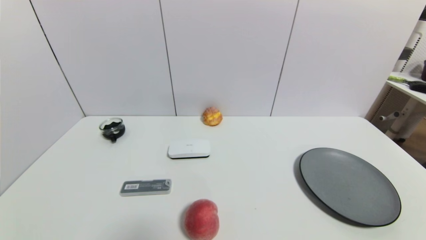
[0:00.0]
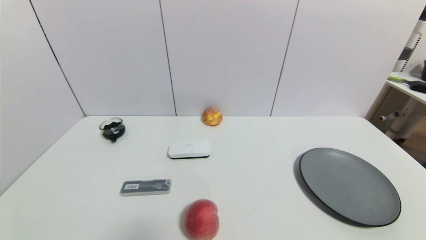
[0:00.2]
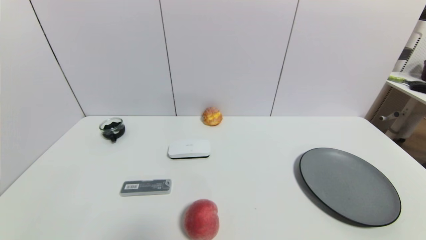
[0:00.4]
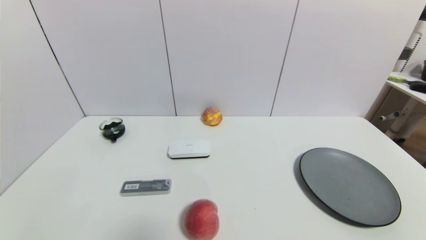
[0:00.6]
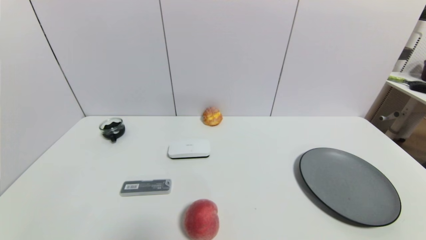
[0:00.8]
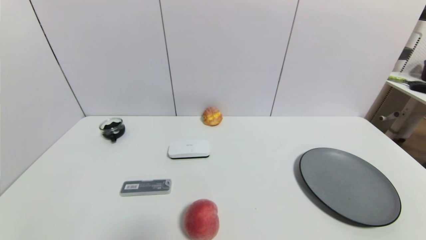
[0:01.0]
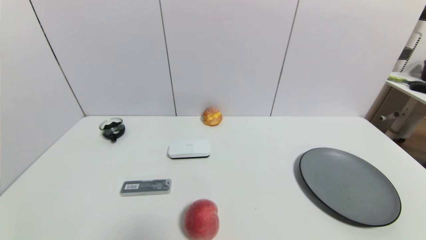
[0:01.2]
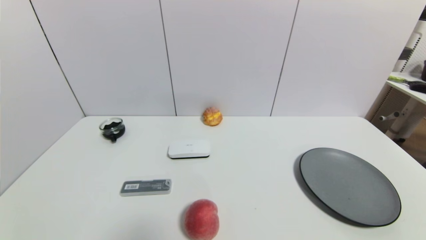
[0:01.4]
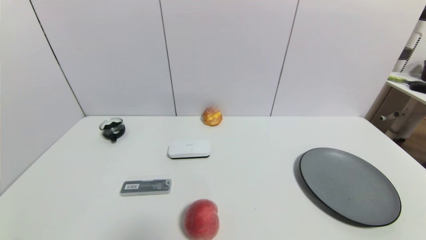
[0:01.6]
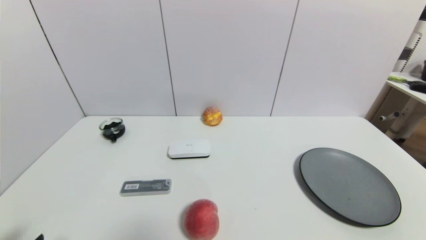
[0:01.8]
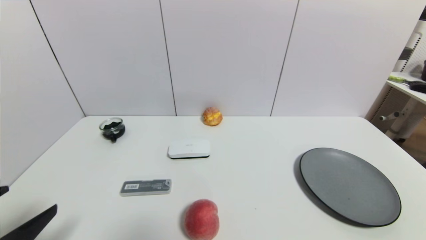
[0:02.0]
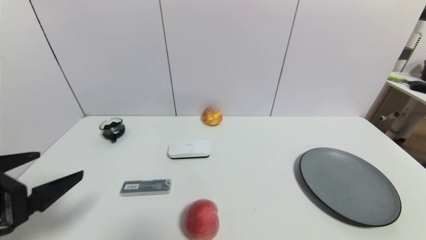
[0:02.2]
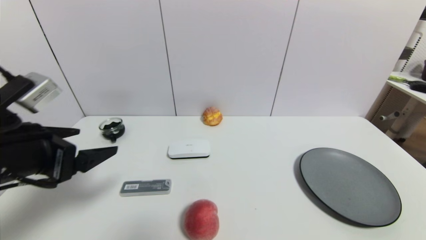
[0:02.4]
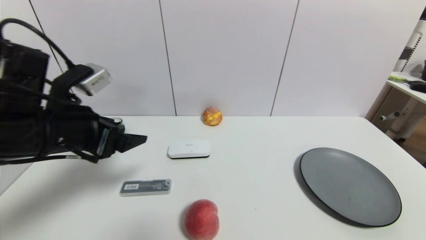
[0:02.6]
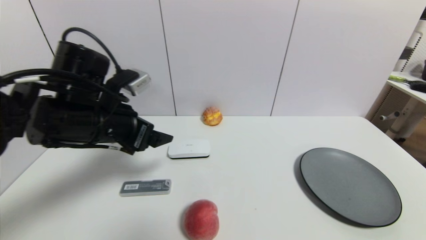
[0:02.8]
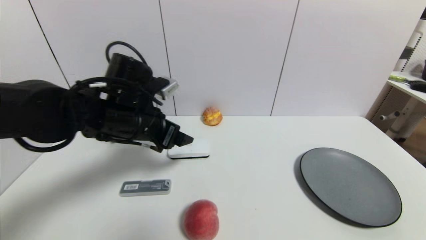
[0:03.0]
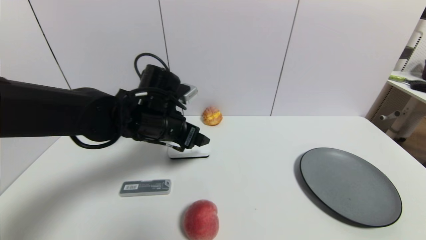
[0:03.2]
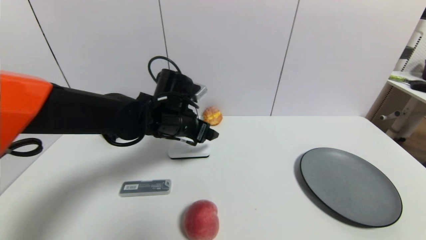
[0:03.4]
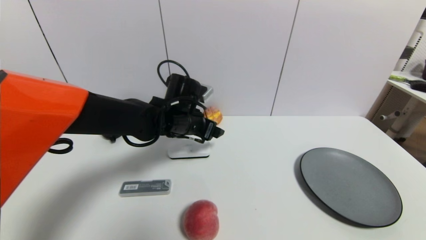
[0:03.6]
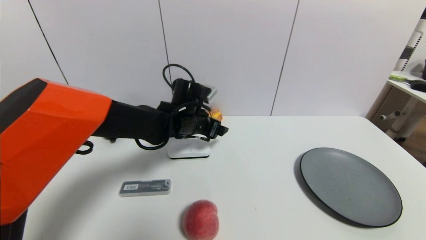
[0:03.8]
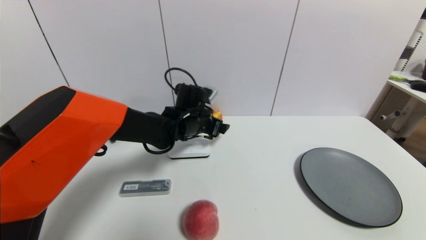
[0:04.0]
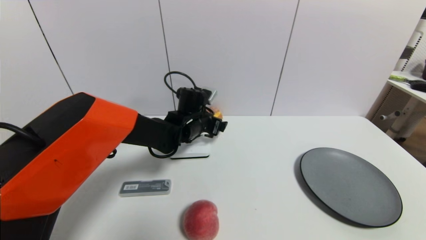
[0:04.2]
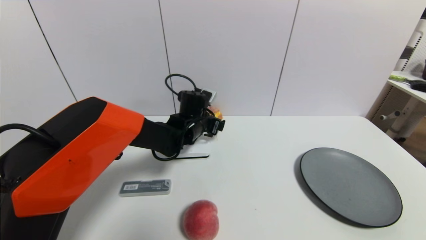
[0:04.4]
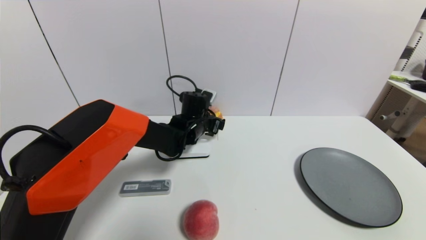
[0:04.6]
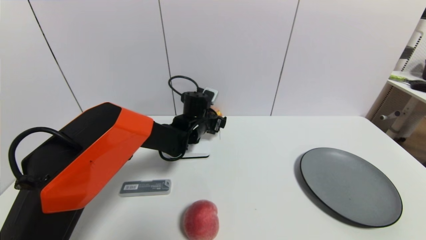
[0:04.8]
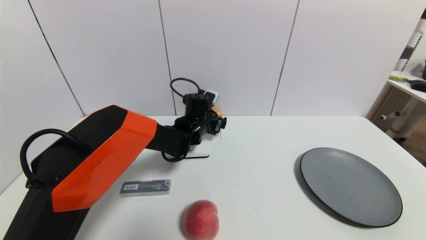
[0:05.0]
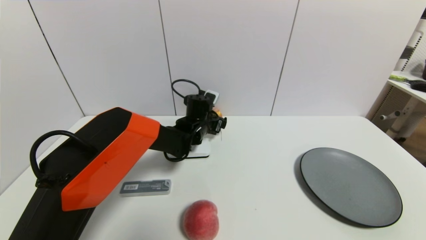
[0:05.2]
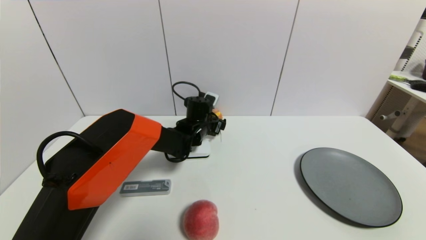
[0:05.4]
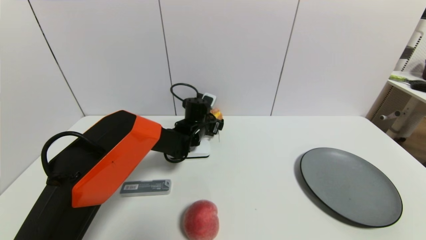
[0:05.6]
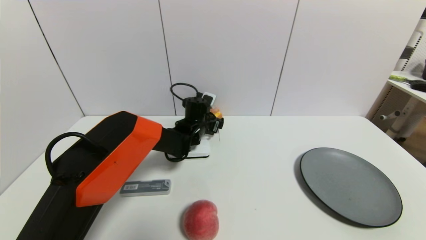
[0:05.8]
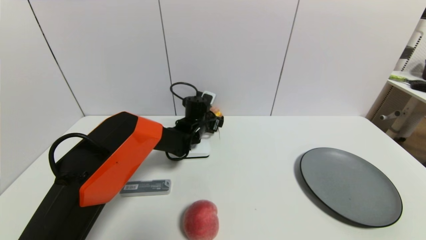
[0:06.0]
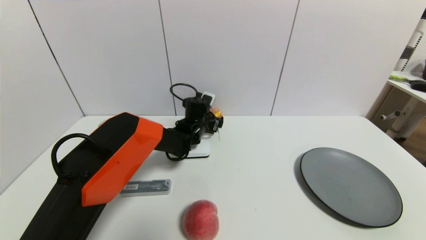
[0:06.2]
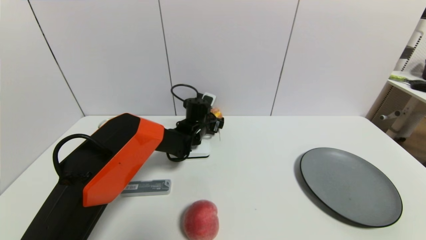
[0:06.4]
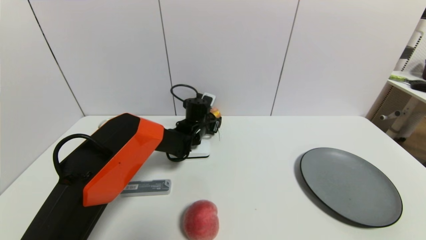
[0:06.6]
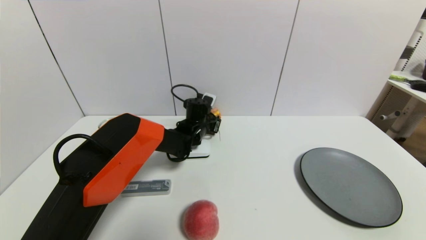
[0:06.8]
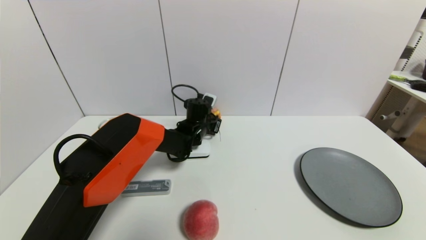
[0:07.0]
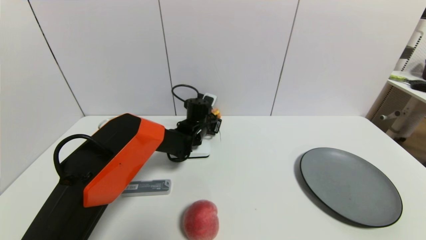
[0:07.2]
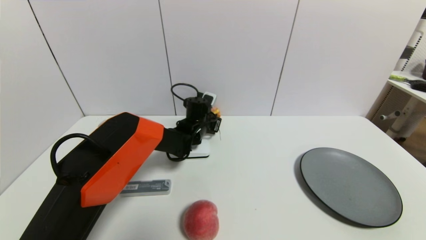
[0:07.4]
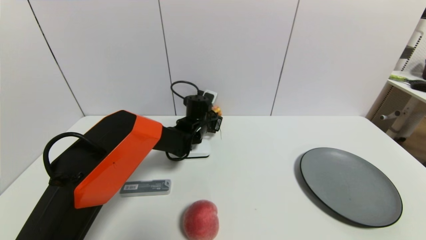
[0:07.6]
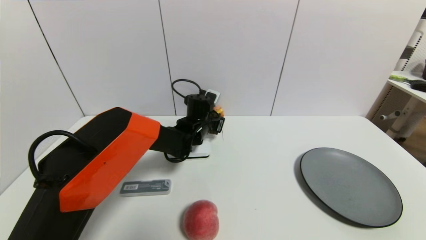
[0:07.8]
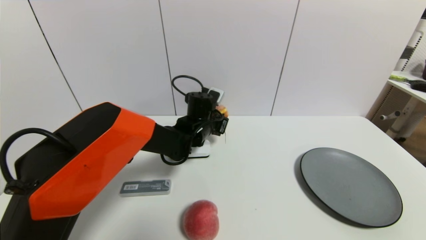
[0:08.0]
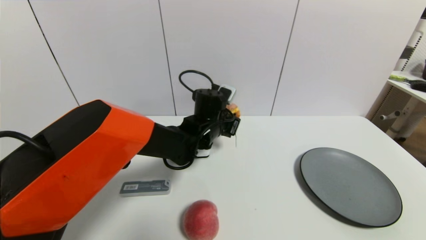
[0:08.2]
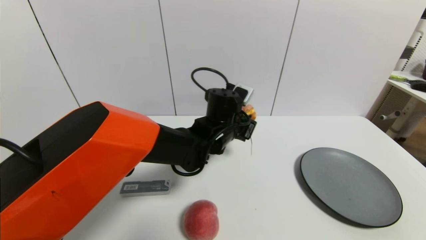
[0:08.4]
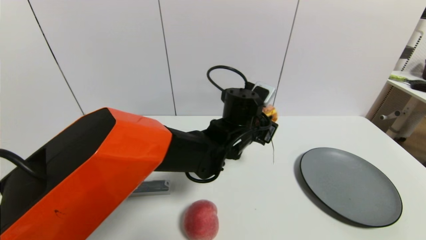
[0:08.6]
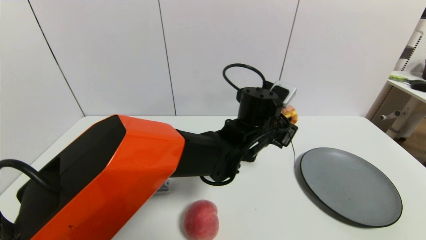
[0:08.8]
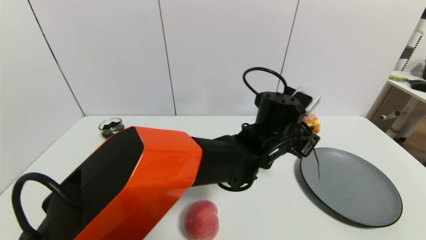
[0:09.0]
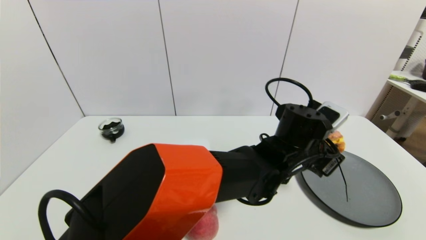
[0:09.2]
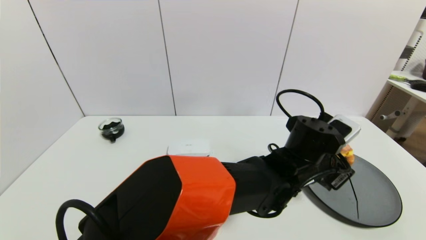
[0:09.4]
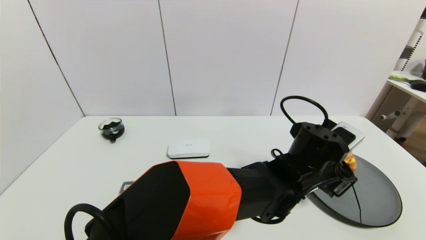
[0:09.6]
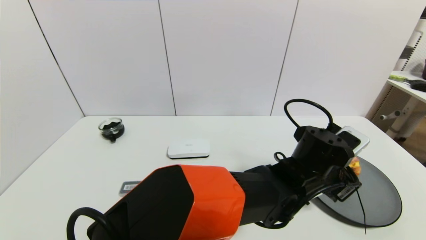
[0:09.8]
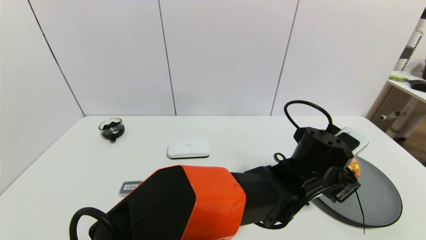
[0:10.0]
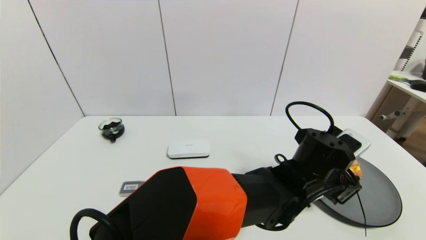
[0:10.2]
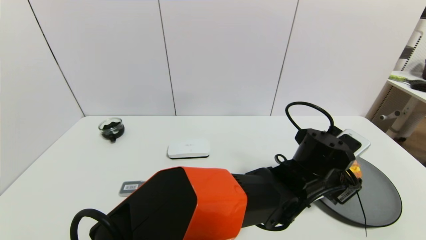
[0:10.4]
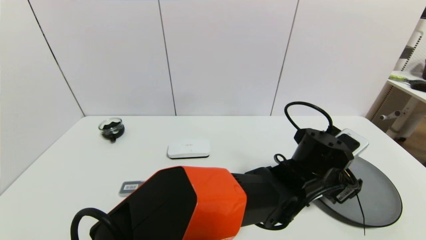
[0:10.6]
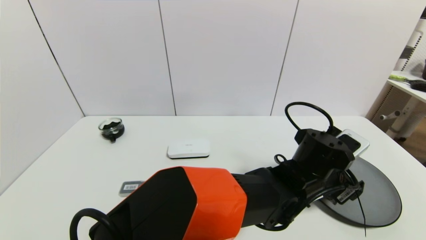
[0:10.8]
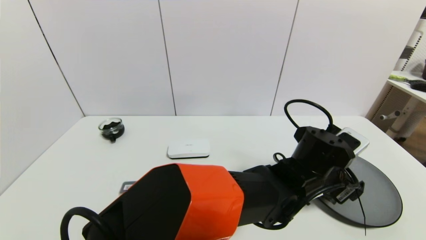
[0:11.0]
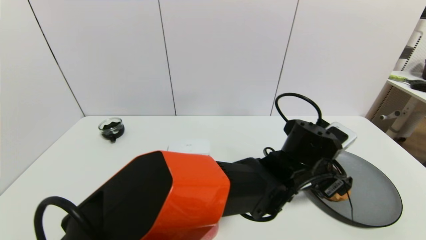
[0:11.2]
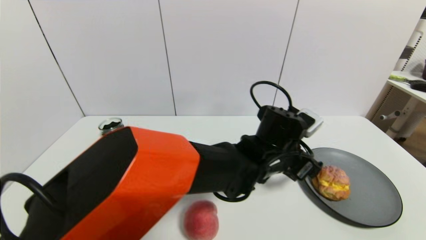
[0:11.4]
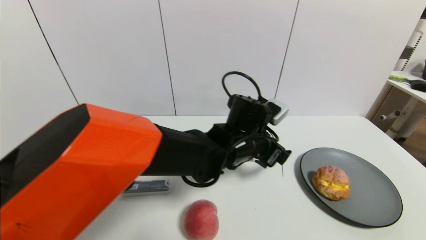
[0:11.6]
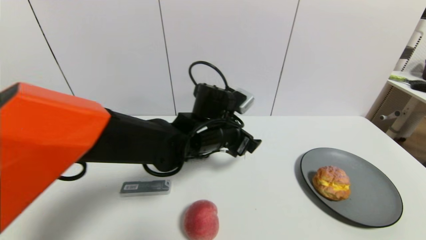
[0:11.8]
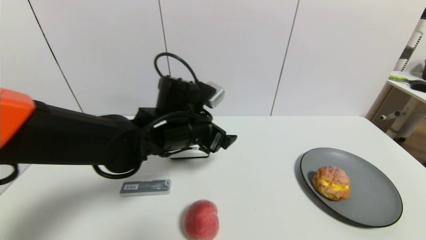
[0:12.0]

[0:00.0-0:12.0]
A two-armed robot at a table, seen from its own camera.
Task of the whole recording: use a gripper to pick the target object and place on the gray plate.
Step, 0:00.0 to 0:07.2: Grasp the round bread with the left gripper.
Step, 0:07.4 to 0:11.2: Place the round bread on the gray plate with the left gripper.
0:01.6 to 0:03.0: The left gripper moves forward, to the right and upward, approximately 35 cm.
0:03.0 to 0:04.4: The left gripper travels forward, downward and to the right by approximately 20 cm.
0:04.4 to 0:06.0: The left gripper shifts by roughly 5 cm.
0:06.0 to 0:07.6: The left gripper closes up.
0:07.6 to 0:09.0: The left gripper moves backward, to the right and upward, some 25 cm.
0:09.0 to 0:10.4: The left gripper travels to the right by roughly 5 cm, and opens.
0:10.4 to 0:12.0: The left gripper shifts approximately 25 cm to the left.

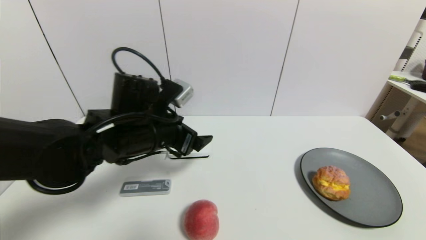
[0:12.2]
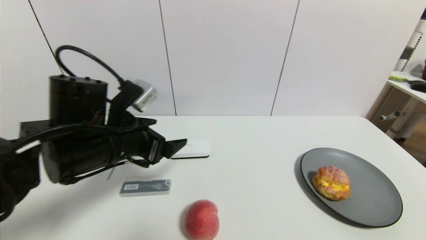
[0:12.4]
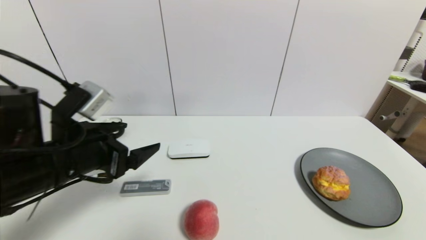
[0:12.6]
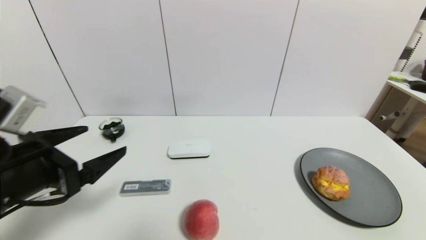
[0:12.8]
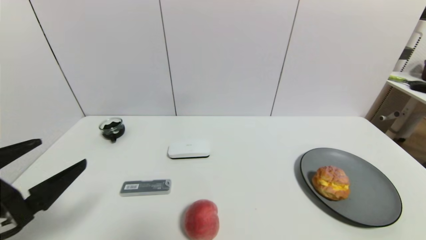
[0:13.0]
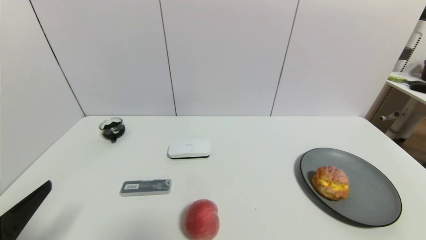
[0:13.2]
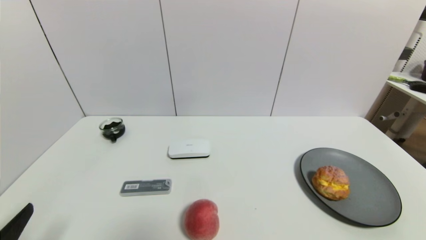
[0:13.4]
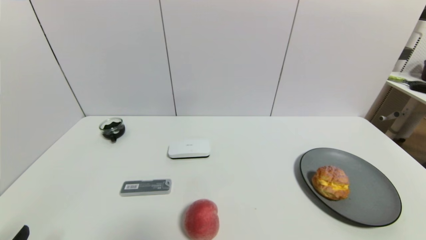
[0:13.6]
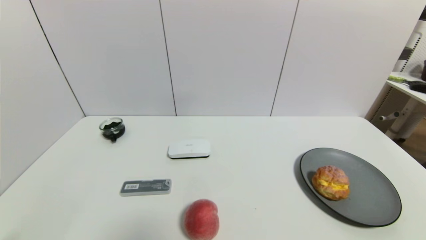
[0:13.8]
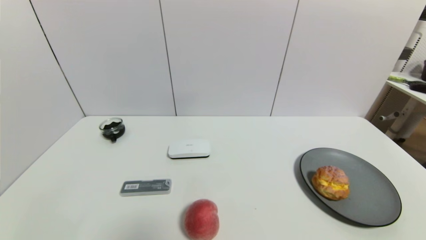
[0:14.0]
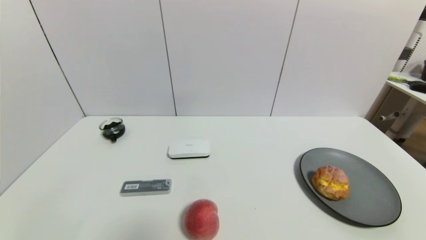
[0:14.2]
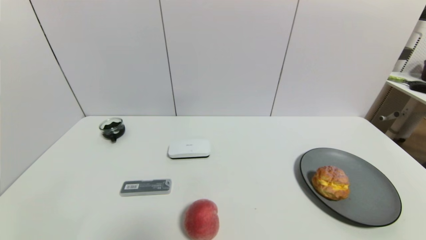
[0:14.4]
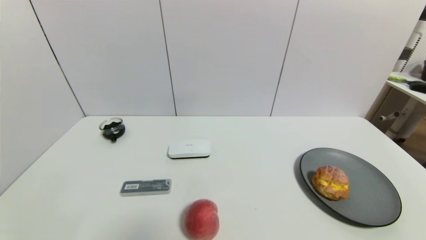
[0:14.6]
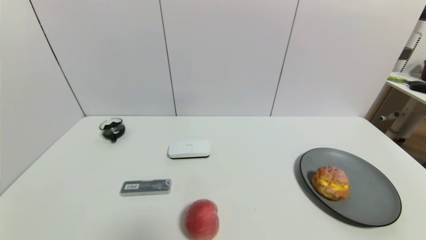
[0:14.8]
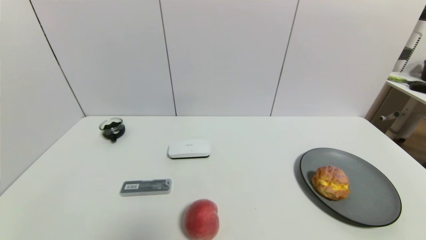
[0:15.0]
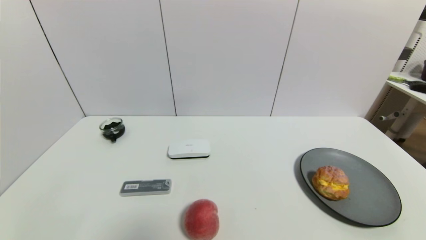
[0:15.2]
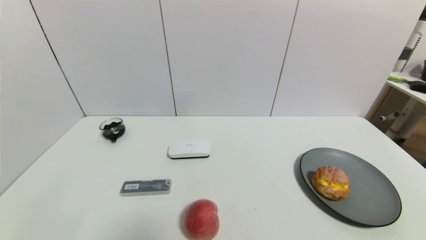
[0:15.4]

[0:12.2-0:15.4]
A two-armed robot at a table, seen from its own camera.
Task of the whole recording: use a gripper to pick the target object and place on the gray plate.
0:12.2 to 0:13.8: The left gripper shifts some 35 cm backward, to the left and downward.
